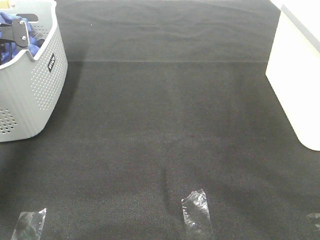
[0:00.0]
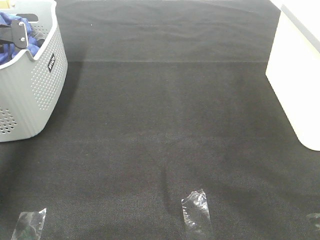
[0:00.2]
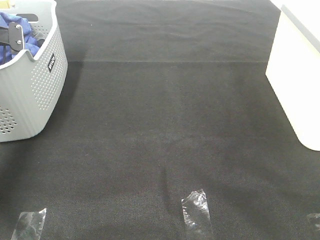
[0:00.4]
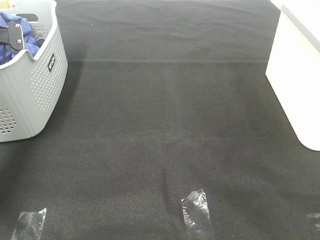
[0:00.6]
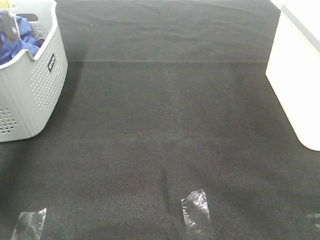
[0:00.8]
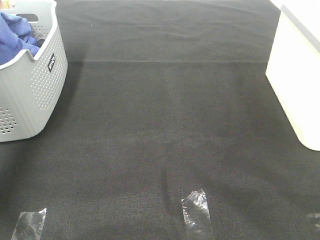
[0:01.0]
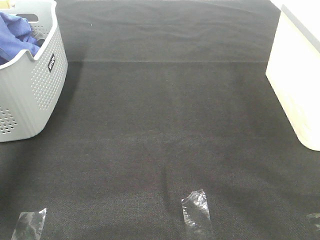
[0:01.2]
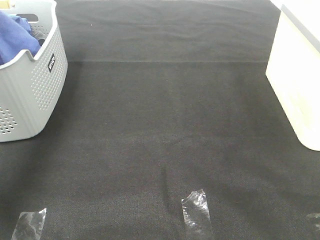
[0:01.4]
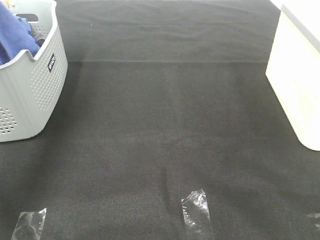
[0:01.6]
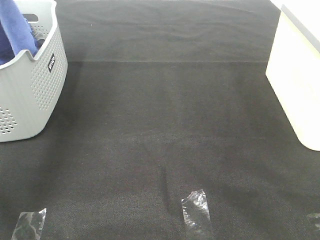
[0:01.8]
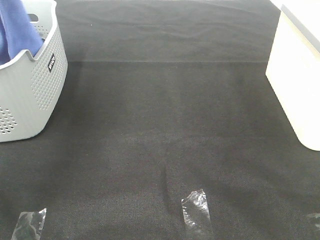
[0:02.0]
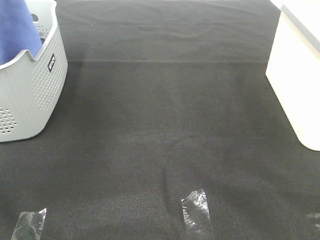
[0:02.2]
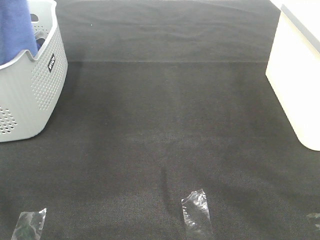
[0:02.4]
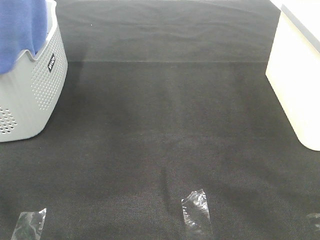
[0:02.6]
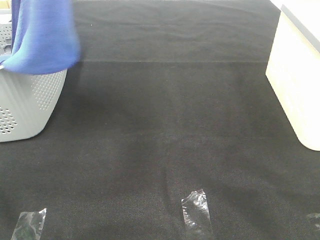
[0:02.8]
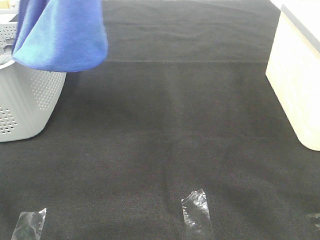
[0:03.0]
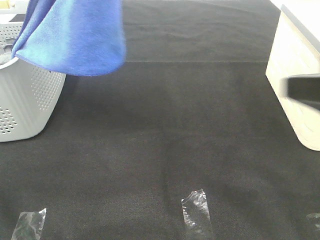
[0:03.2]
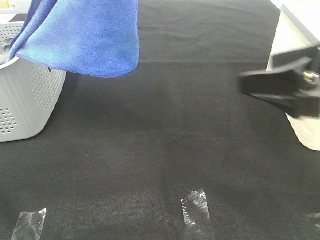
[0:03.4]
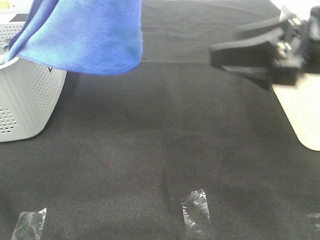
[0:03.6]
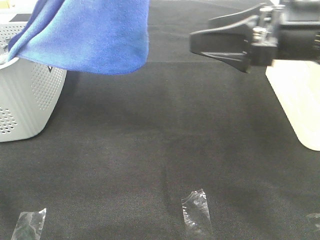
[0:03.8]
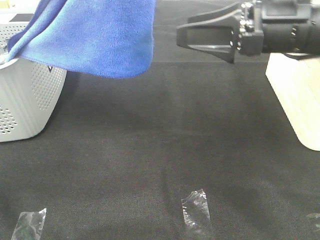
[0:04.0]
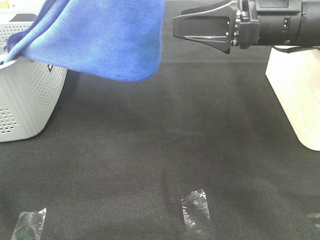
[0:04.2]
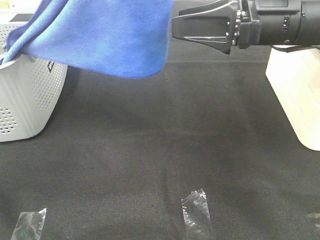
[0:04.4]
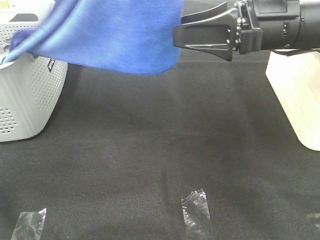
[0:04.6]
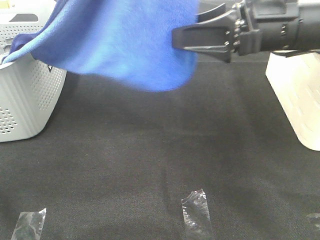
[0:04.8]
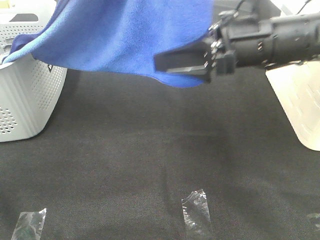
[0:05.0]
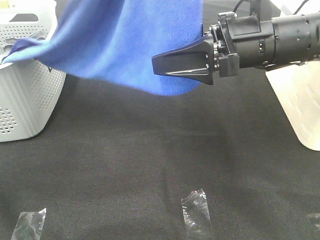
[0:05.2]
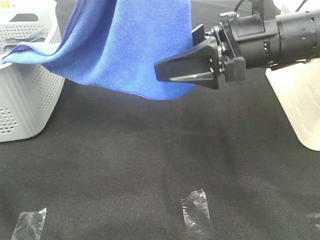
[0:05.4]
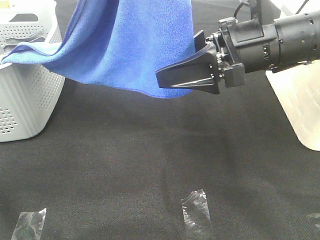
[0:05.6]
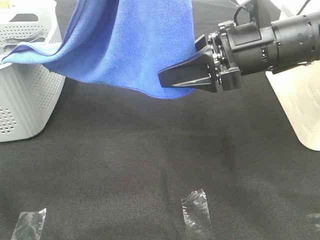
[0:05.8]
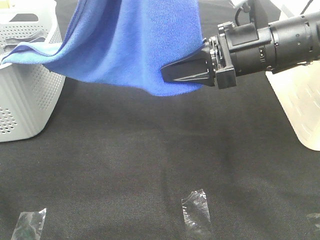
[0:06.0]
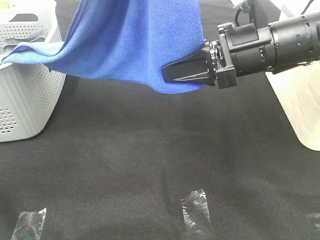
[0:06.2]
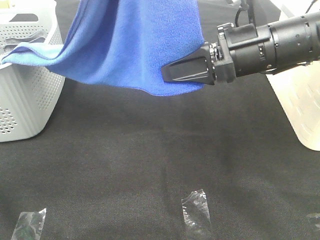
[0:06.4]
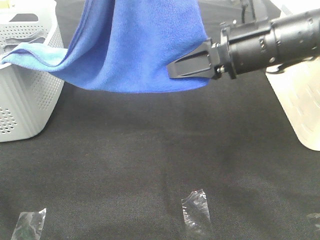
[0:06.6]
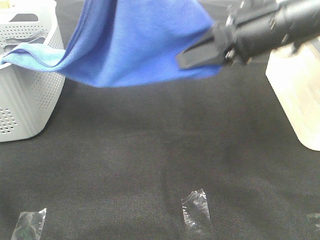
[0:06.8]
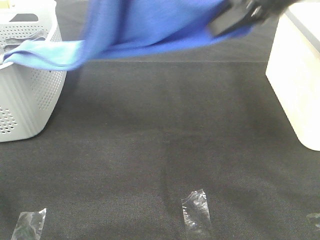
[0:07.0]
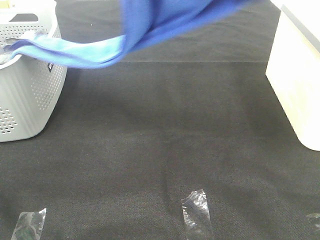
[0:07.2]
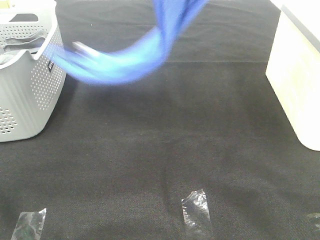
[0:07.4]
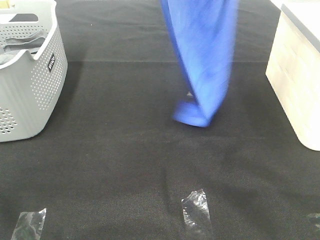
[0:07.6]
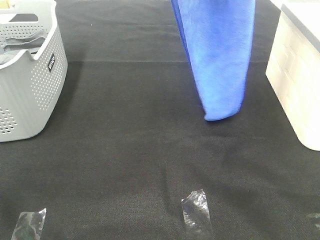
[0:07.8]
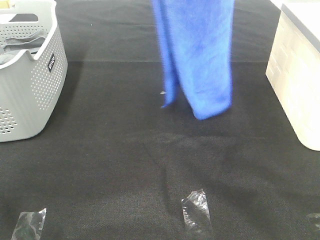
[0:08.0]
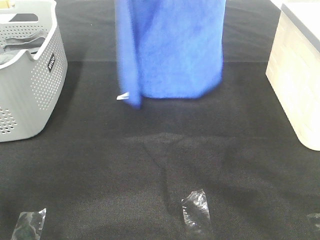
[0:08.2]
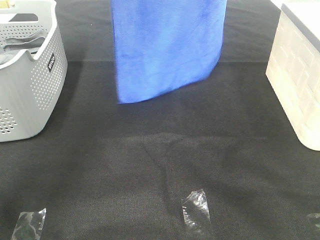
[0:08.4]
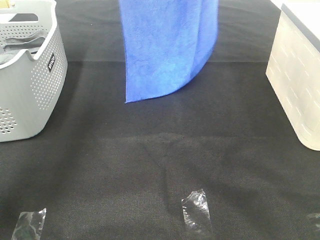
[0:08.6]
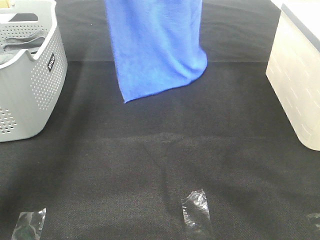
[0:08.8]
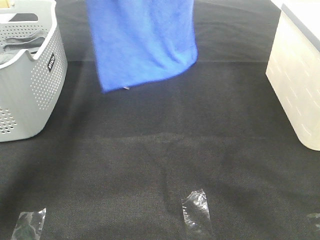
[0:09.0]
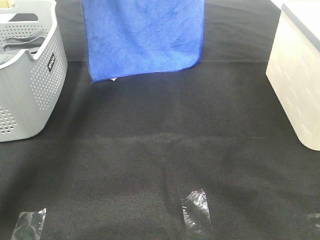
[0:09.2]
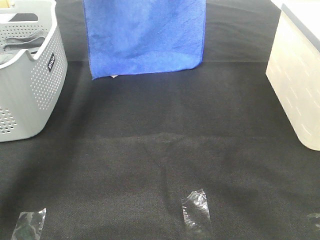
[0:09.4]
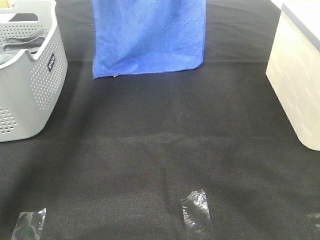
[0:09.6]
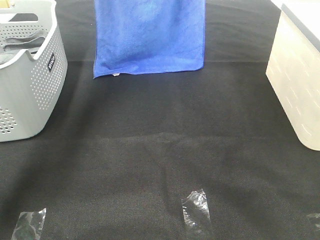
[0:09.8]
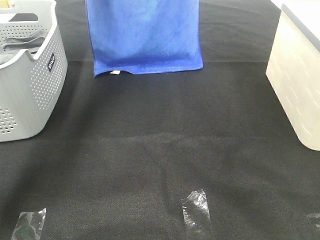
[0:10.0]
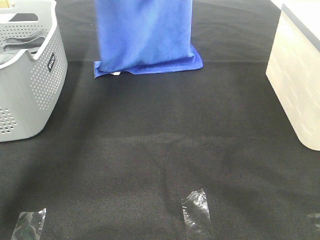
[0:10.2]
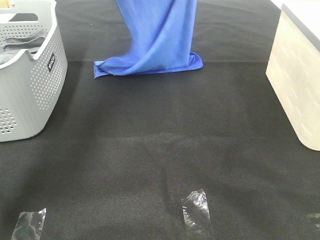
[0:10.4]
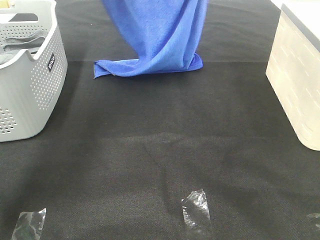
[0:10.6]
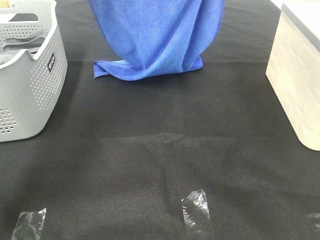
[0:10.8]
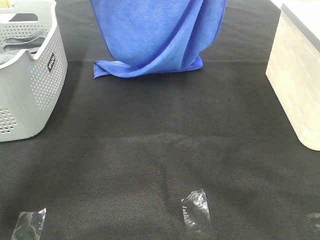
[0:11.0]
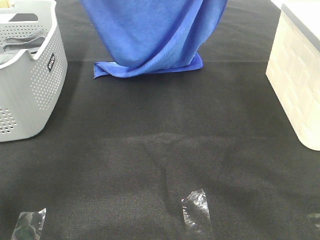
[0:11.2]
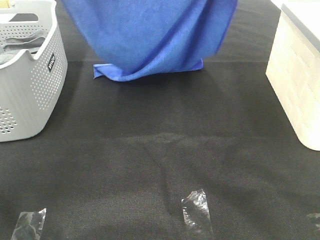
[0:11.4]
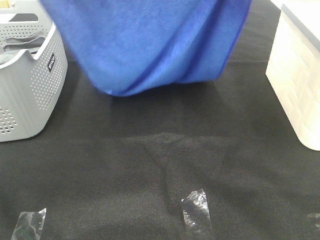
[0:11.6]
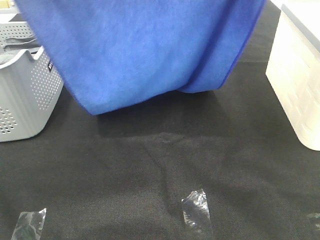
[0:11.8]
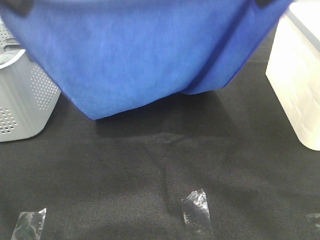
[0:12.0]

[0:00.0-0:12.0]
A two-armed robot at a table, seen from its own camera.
Task of the whole recording: Remove the towel and place it.
Step, 0:02.4 to 0:05.4: Right hand: grab a corner of the blue towel and straighten it.
Step, 0:05.6 to 0:11.6: Left hand: spread the blue towel flat on the table.
Step, 0:05.6 to 0:11.6: Right hand: spread the blue towel flat on the table.
0:00.0 to 0:01.6: The left gripper goes about 25 cm upward and backward.
0:01.6 to 0:03.0: The right gripper shifts roughly 10 cm forward, while the left gripper moves to the right, backward and upward, approximately 25 cm.
0:03.0 to 0:04.4: The right gripper moves forward and to the left, roughly 25 cm. The left gripper goes approximately 5 cm to the right.
0:04.4 to 0:06.0: The right gripper closes.
0:06.0 to 0:07.6: The right gripper heads upward, covering roughly 25 cm. The left gripper shifts some 10 cm forward.
0:07.6 to 0:09.0: The left gripper moves forward, to the left and downward, roughly 25 cm, while the right gripper moves forward, roughly 15 cm.
0:09.0 to 0:10.4: The left gripper travels downward by roughly 5 cm.
0:10.4 to 0:12.0: The grippers both shift backward by about 25 cm.

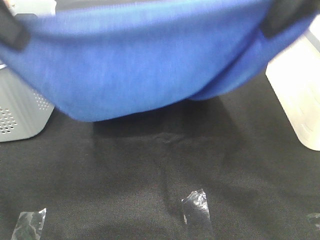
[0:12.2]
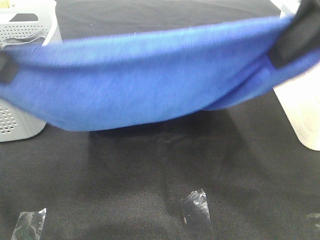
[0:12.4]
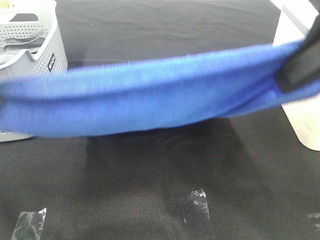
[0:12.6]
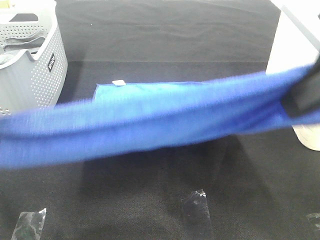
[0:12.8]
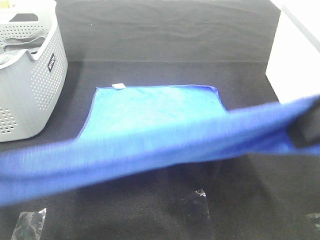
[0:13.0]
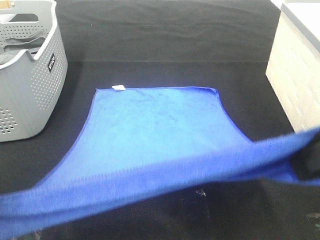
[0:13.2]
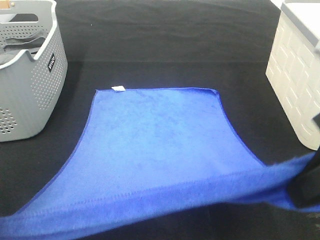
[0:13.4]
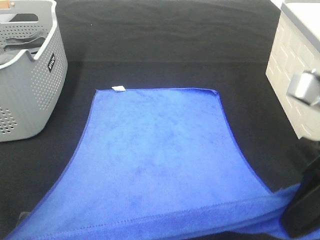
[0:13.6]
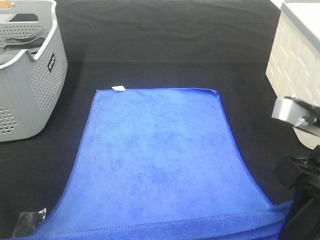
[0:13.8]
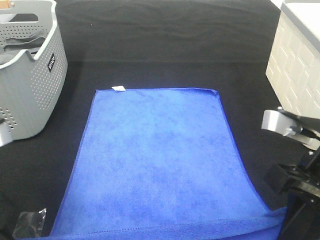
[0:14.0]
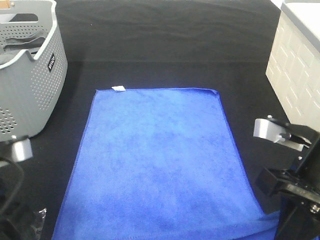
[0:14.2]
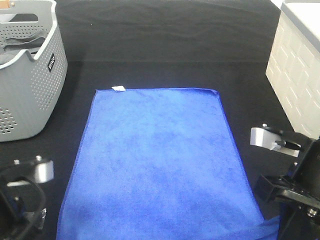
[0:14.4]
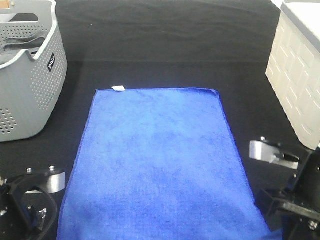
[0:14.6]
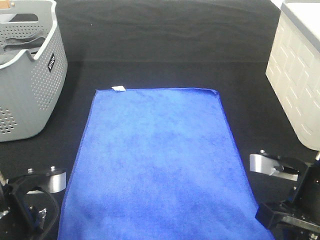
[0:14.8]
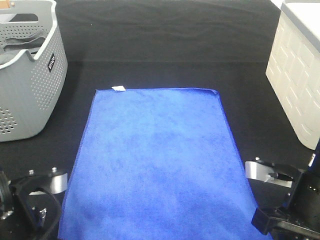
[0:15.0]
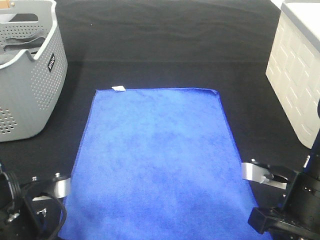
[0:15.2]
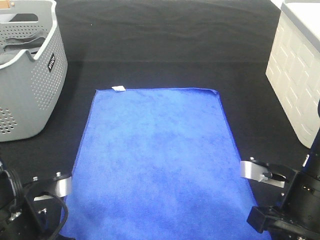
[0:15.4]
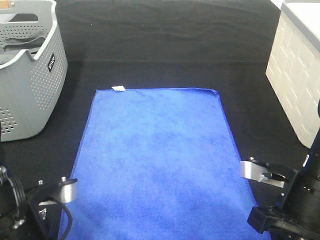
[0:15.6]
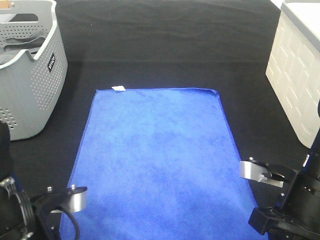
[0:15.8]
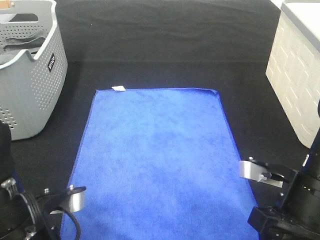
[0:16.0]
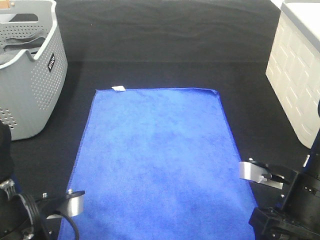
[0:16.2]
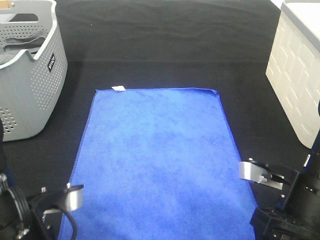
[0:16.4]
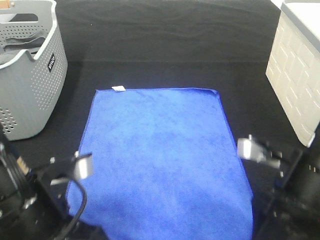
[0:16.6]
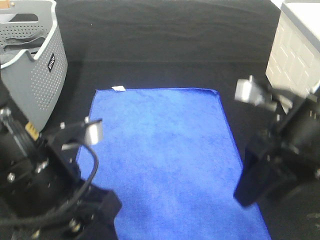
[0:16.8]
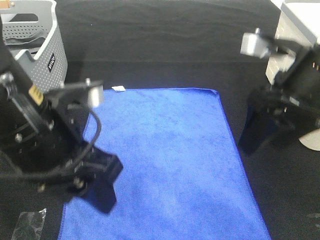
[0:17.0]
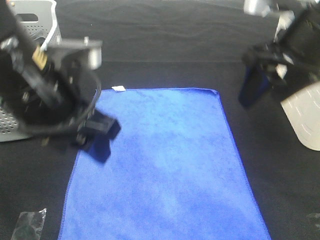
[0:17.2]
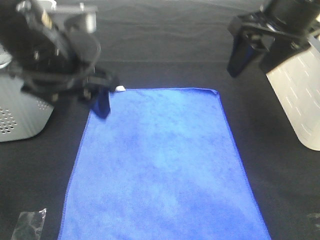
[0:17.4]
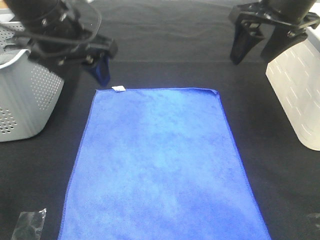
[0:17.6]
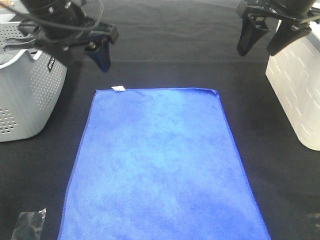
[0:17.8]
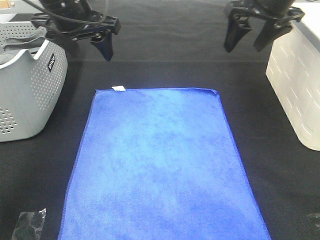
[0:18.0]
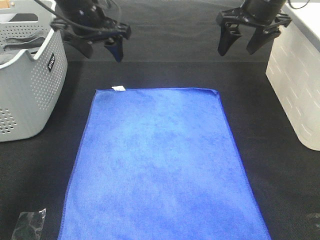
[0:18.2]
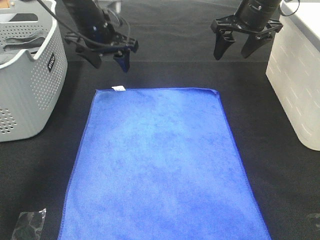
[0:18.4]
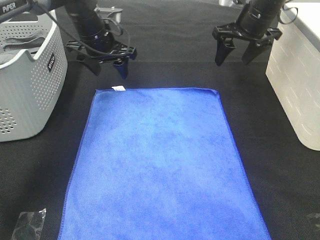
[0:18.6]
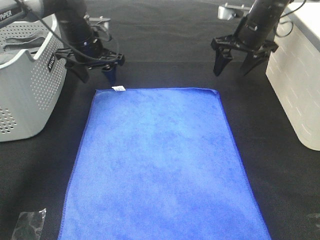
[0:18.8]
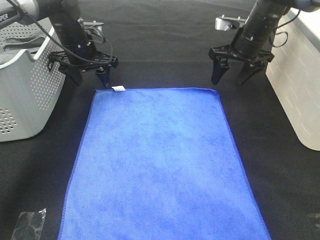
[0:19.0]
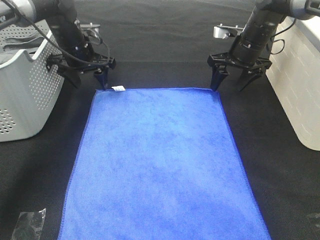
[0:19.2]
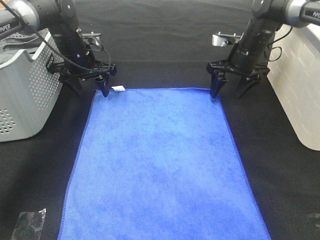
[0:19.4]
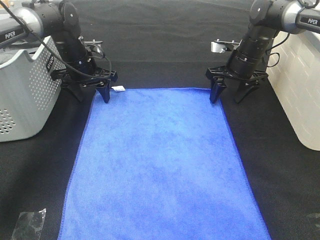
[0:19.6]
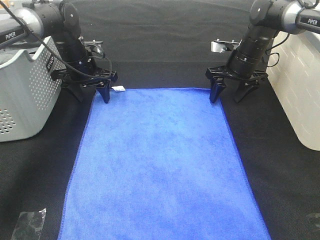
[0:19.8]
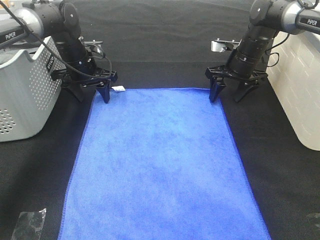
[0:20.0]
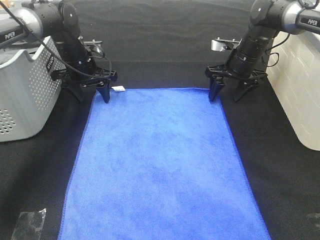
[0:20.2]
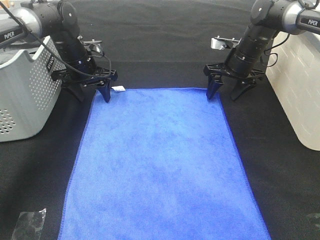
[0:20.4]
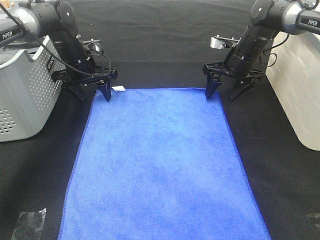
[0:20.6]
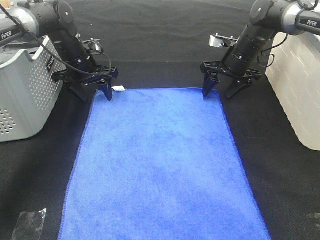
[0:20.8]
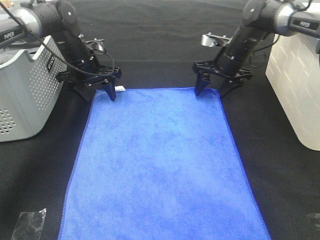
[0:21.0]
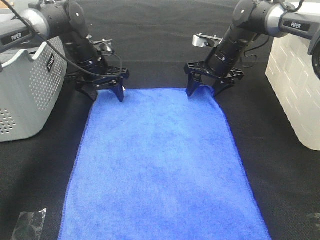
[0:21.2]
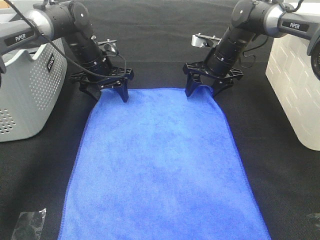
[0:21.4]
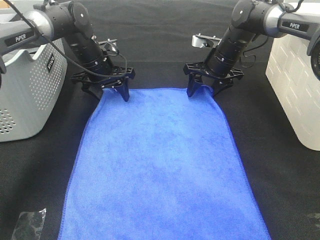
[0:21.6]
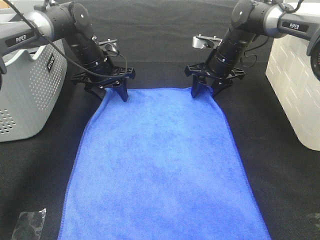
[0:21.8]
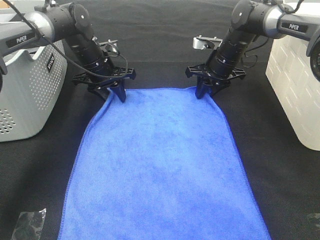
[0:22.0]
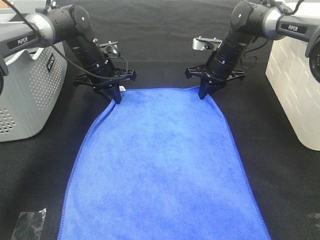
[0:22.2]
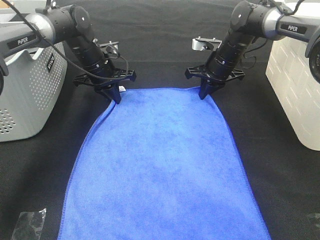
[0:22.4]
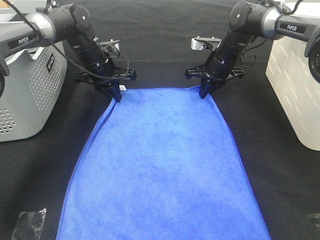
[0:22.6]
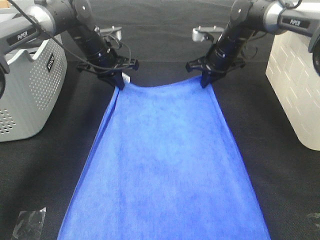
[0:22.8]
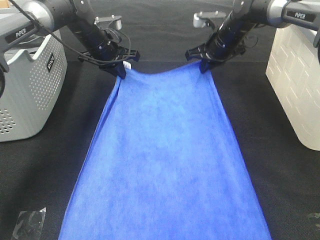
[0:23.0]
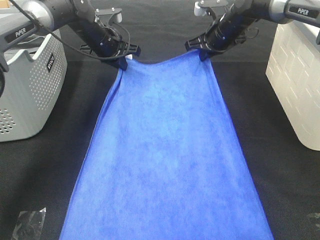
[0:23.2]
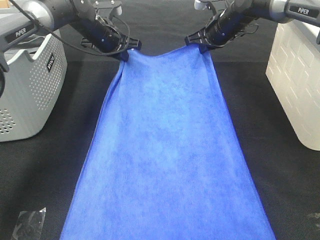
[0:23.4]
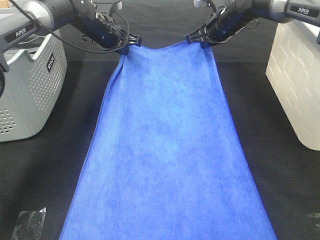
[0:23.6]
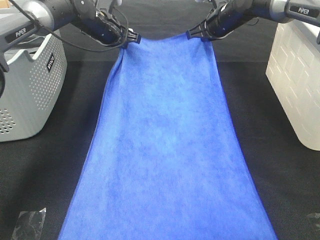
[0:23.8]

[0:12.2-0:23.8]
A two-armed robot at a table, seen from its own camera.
Task of the whole recording: Remove the towel and place it.
Step, 0:12.2 to 0:19.8: Left hand:adjust the blue towel.
Step, 0:12.2 to 0:19.8: Right hand:adjust the blue towel.
0:12.2 to 0:13.6: The two grippers go about 15 cm downward and backward.
0:13.6 to 0:15.0: The two grippers go some 10 cm downward.
0:15.0 to 0:16.6: The right gripper opens its fingers; the left gripper shifts by some 5 cm, and opens.
0:16.6 to 0:18.0: The left gripper goes roughly 30 cm forward. The right gripper goes some 30 cm forward and upward.
0:18.0 to 0:19.4: The two grippers go roughly 15 cm downward and forward.
0:19.4 to 0:21.0: The grippers make only small movements.
0:21.0 to 0:22.4: The left gripper closes up. The right gripper closes.
0:22.4 to 0:23.8: The left gripper heads upward and forward, covering about 10 cm; the right gripper travels upward by some 10 cm.
